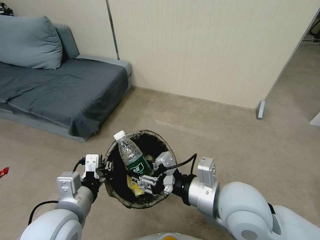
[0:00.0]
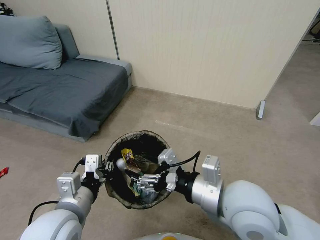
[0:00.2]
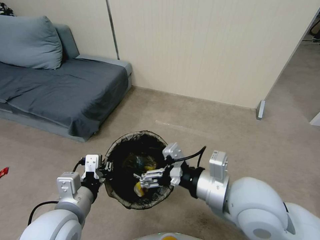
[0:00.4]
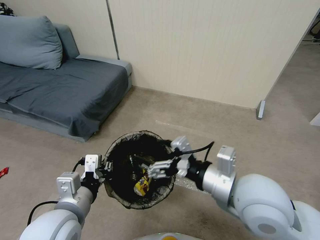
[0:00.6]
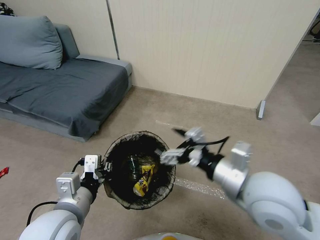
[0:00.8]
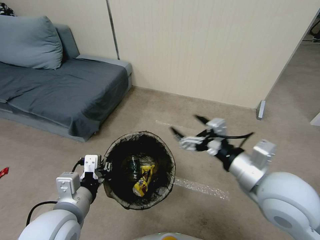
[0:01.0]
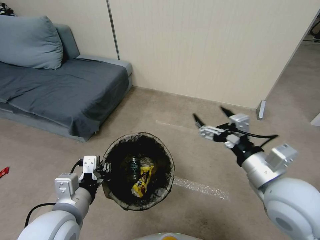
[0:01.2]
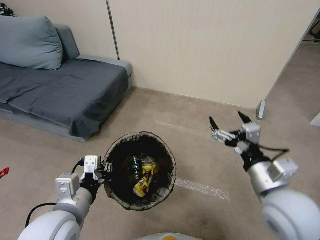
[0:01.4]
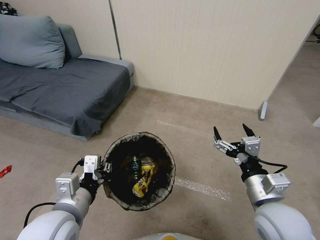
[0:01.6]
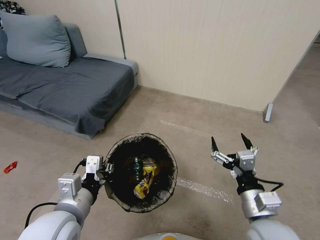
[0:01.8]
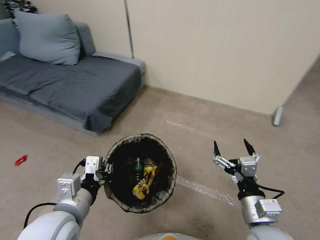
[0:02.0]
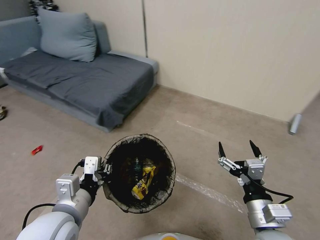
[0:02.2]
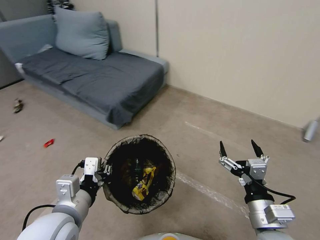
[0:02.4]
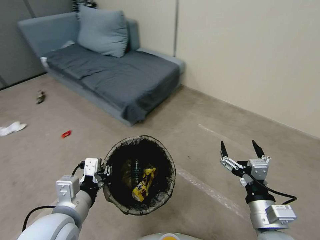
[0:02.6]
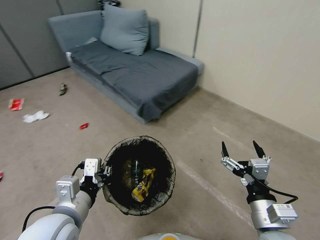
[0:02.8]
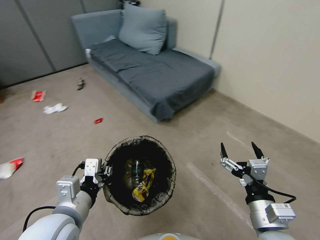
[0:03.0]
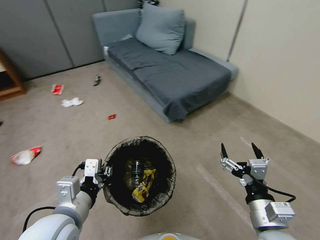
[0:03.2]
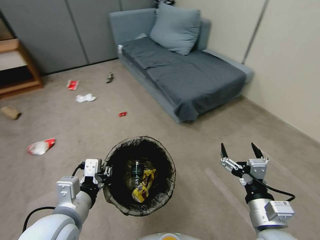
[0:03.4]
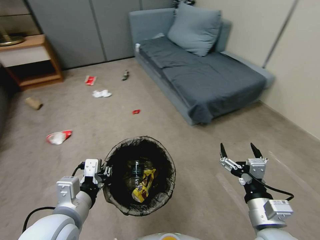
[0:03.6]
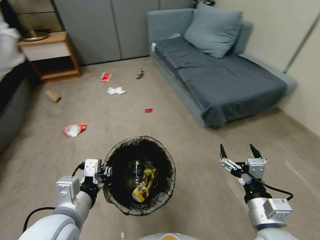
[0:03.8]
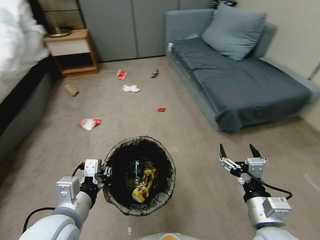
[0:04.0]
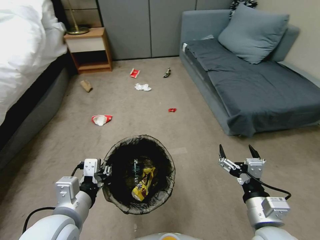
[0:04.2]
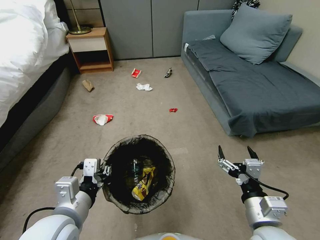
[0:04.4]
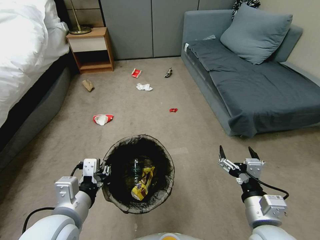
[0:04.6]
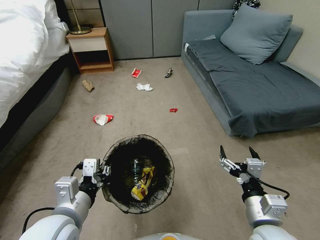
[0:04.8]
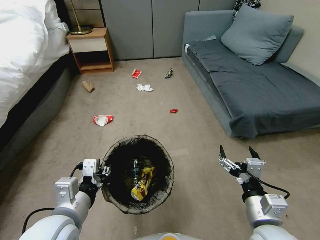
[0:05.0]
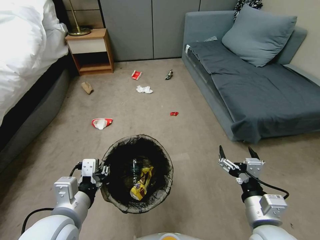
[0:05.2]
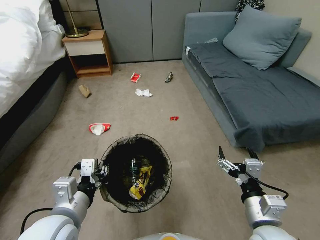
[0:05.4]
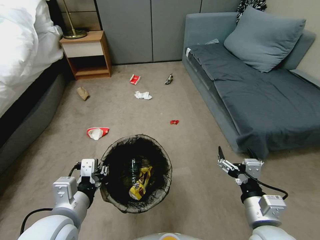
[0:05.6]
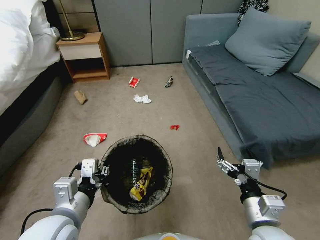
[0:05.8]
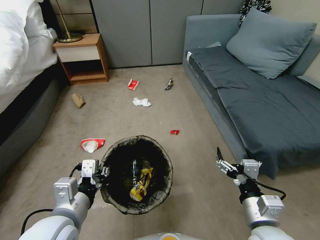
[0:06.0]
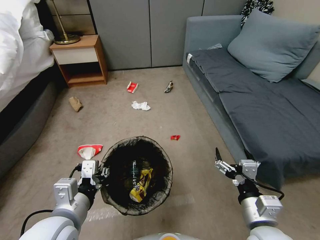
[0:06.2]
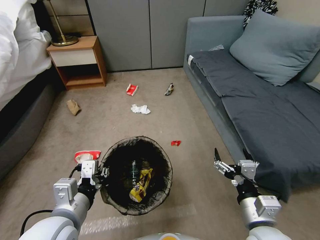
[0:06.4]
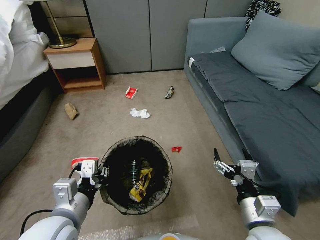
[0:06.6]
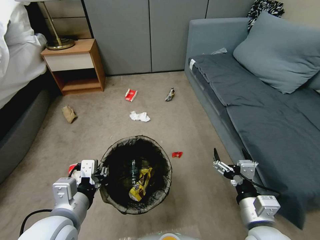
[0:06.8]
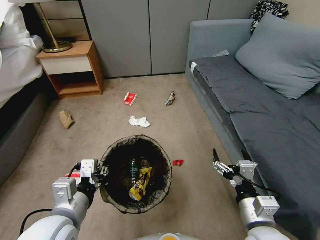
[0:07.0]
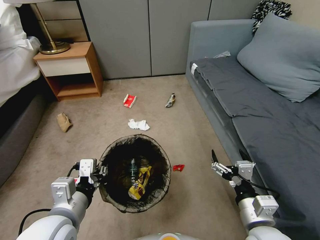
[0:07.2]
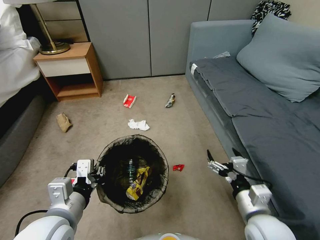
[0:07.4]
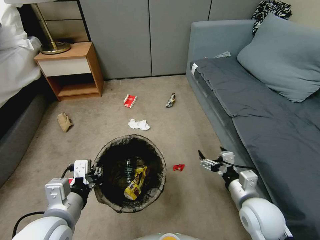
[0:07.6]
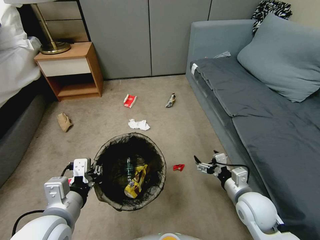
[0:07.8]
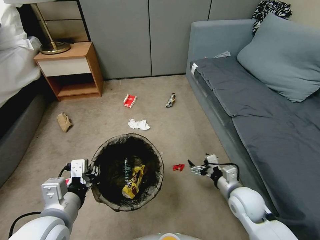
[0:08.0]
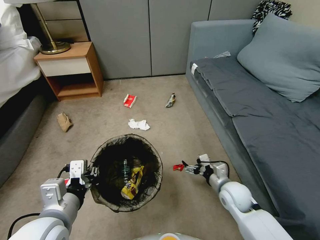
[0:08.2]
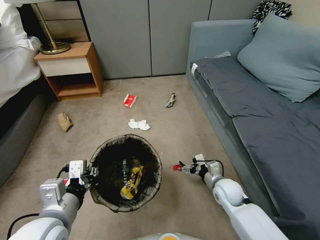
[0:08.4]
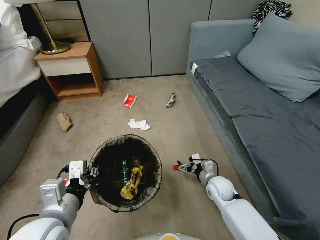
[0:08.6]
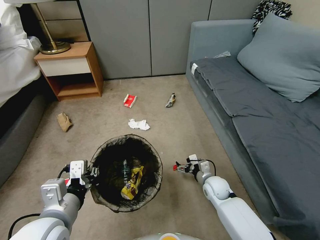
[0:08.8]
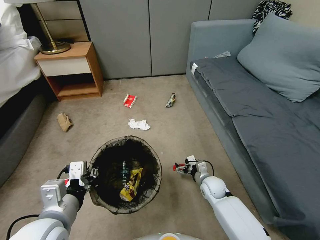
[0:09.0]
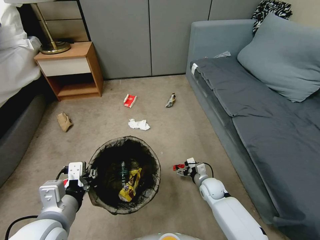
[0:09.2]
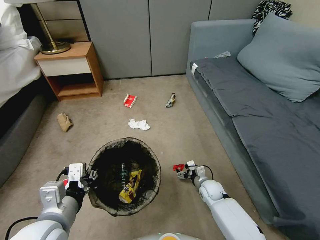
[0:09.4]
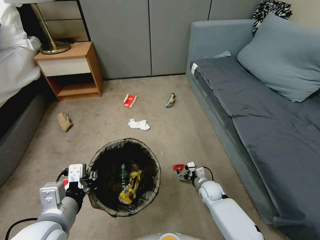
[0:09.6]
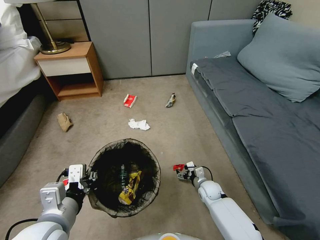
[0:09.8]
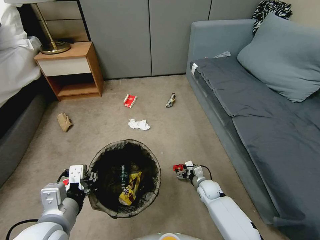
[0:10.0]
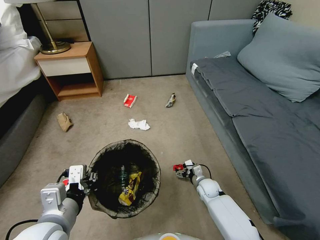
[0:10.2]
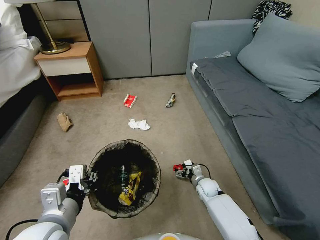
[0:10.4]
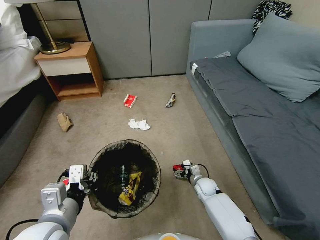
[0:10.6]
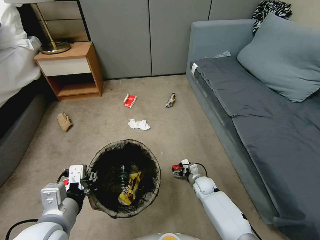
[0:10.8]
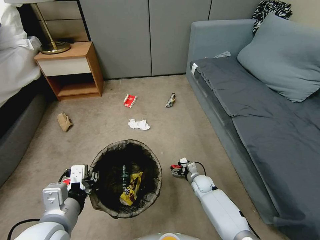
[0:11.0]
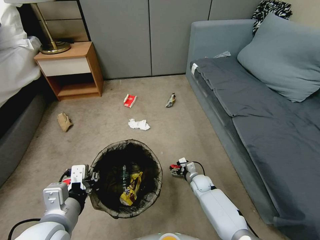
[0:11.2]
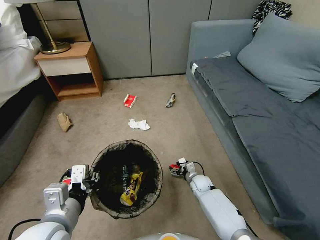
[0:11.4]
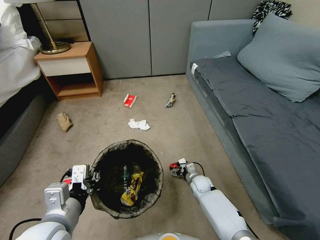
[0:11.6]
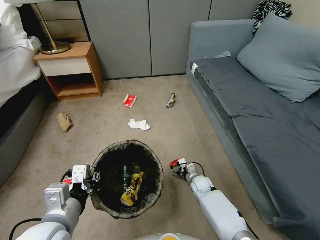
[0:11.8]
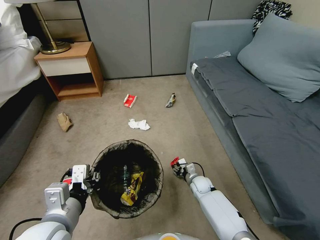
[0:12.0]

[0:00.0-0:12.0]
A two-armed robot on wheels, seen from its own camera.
Task of the whole recording: Pick up the trash bin, then pick up the garbage from the floor and place it into the trash bin.
0:00.0 to 0:01.6: The right gripper moves to the right, about 10 cm, and opens.
0:01.6 to 0:03.0: The right gripper heads downward and backward, covering approximately 10 cm.
0:06.0 to 0:07.6: The right gripper travels forward by roughly 5 cm.
0:07.6 to 0:09.0: The right gripper moves downward and forward, roughly 25 cm.
0:09.0 to 0:10.4: The right gripper shifts roughly 5 cm downward.
0:10.4 to 0:12.0: The right gripper closes its fingers.

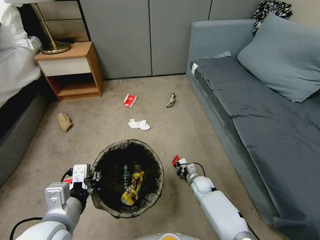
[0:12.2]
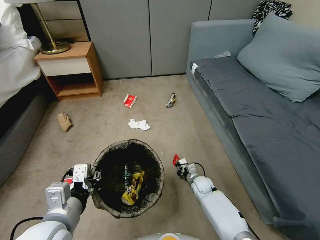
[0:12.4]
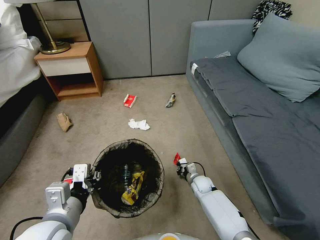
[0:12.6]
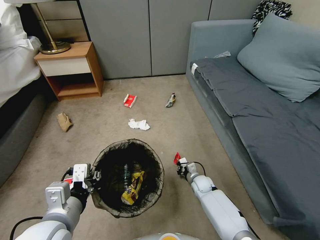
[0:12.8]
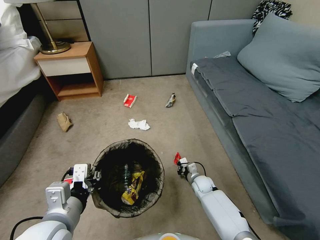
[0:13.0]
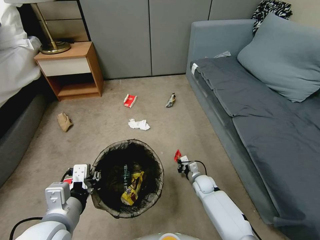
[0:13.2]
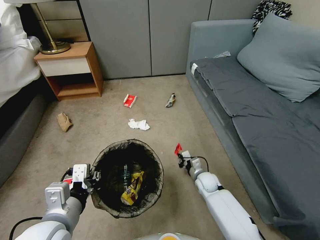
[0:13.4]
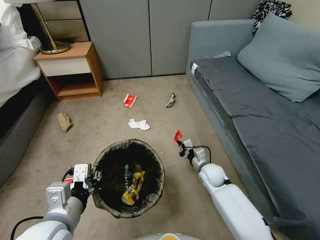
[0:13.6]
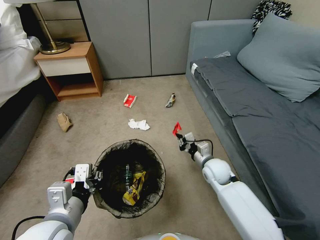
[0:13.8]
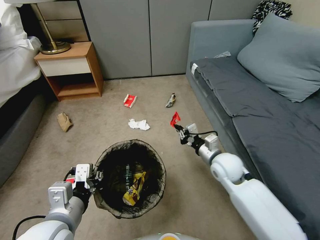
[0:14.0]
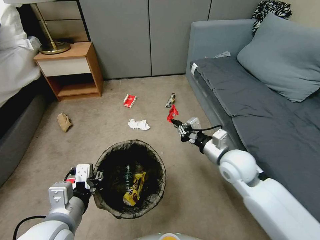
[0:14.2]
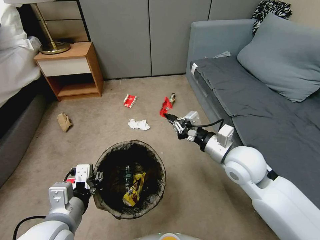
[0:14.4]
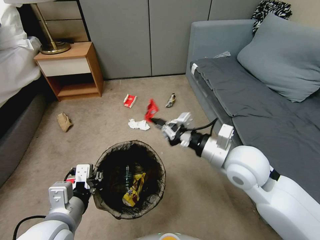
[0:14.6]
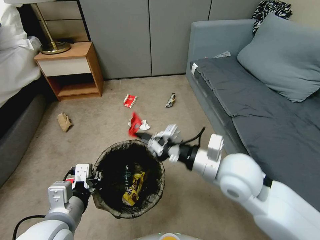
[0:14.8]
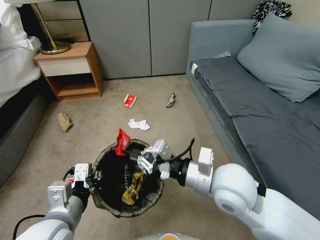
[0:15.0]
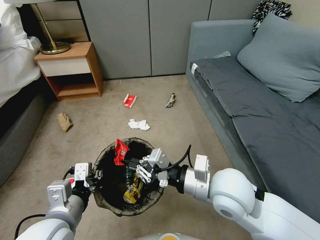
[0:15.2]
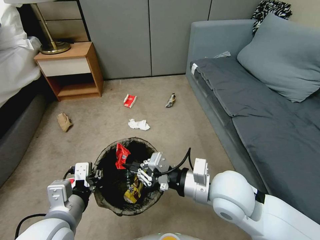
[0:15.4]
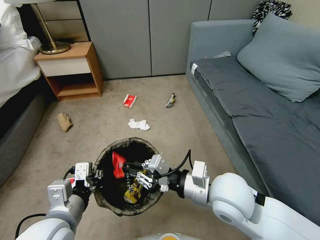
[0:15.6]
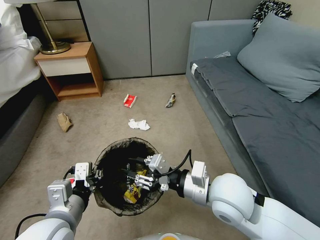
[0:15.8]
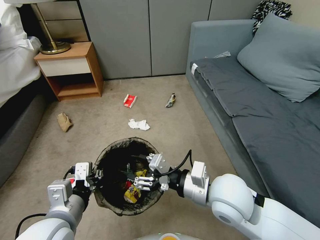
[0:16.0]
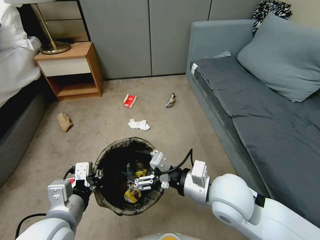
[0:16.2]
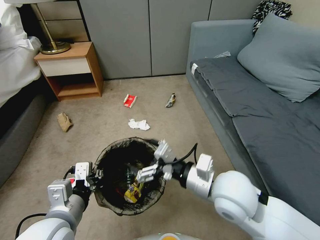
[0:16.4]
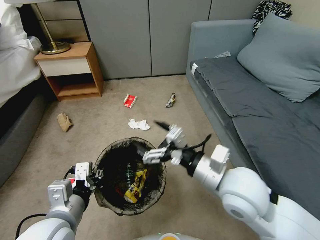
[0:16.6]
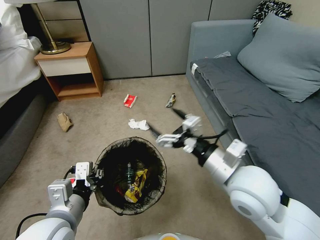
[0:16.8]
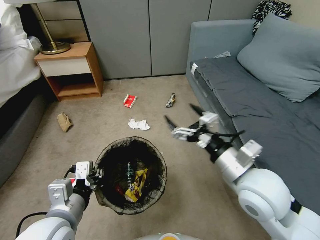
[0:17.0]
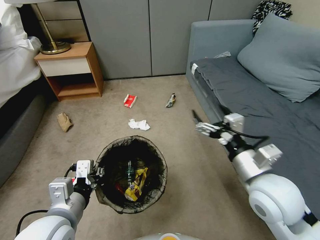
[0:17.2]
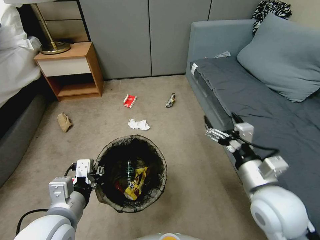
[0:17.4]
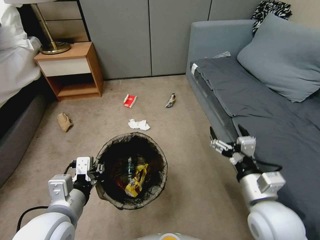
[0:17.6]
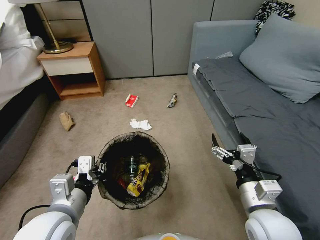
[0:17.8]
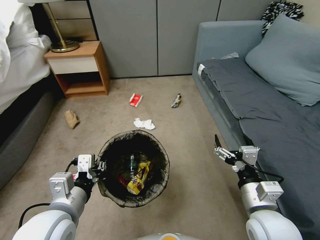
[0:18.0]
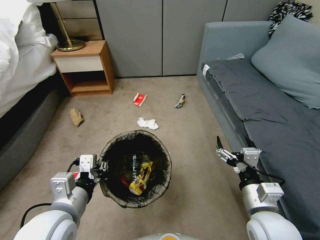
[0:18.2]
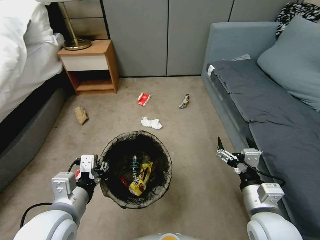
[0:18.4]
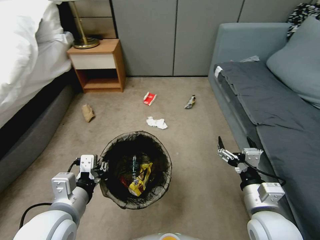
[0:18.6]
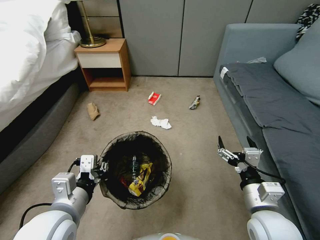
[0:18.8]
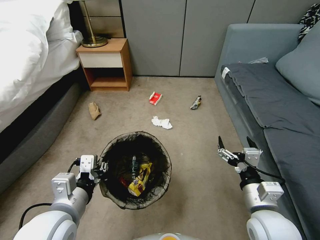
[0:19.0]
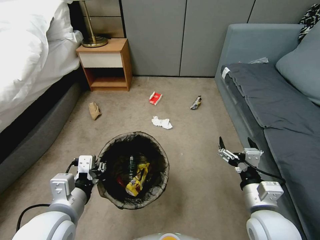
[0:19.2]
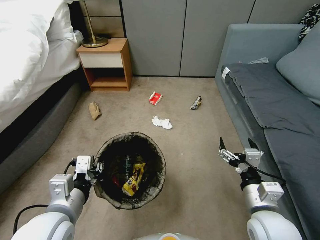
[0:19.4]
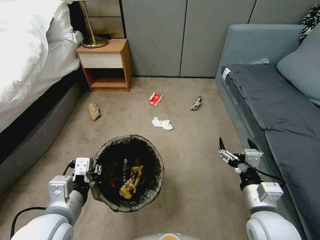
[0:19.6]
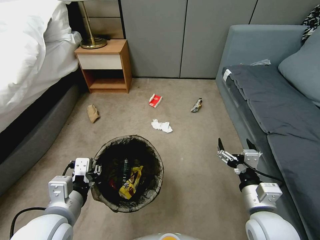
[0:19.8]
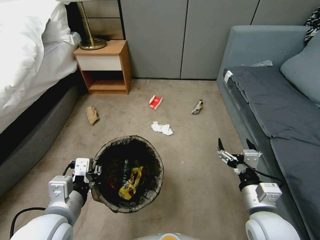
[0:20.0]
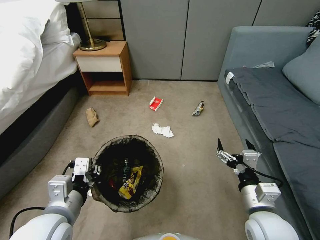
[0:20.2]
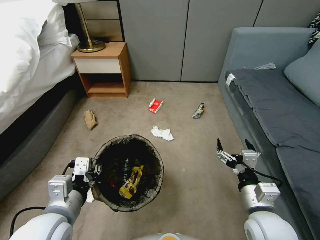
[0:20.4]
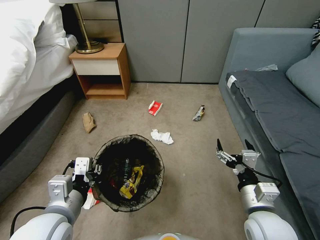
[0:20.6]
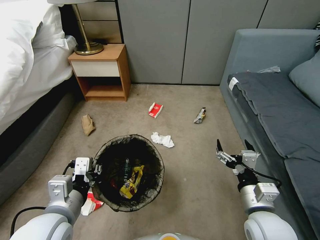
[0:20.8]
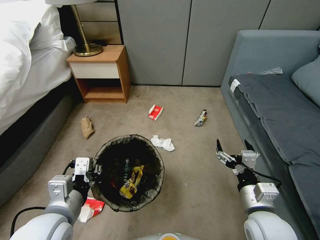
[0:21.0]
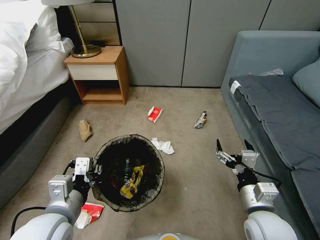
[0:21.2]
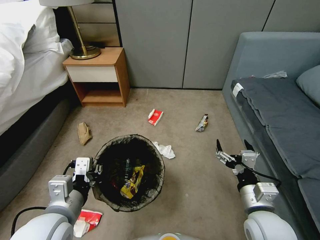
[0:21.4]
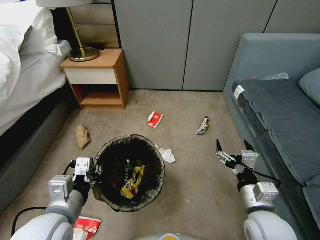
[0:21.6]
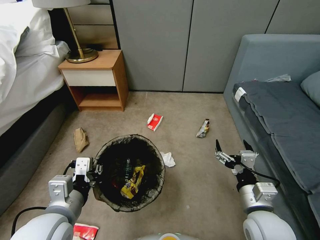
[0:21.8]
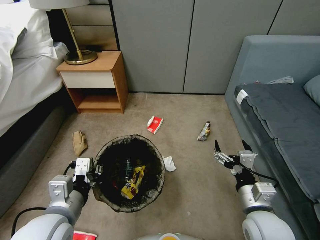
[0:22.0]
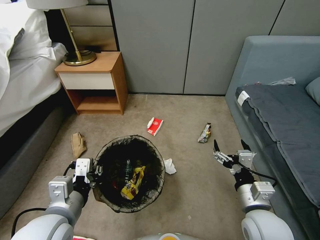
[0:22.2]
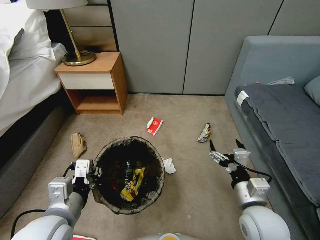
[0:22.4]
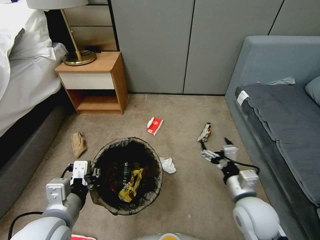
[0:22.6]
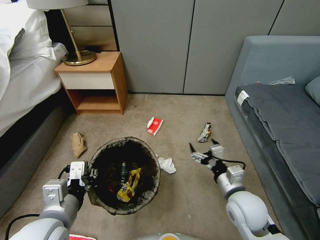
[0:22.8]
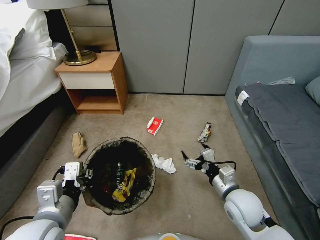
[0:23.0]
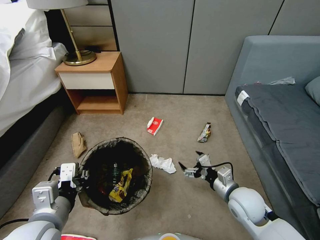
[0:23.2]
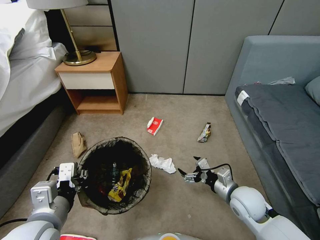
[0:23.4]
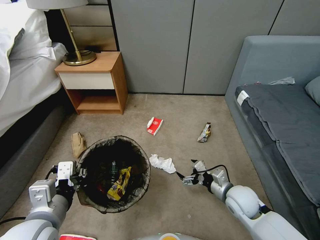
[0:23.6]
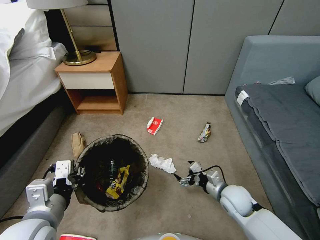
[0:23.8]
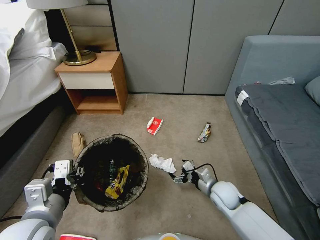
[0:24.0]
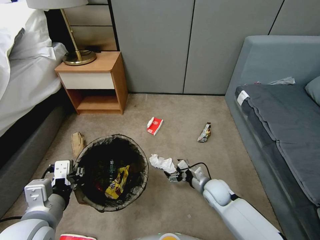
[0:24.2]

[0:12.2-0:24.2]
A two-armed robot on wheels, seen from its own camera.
Task of the whole recording: Pick up the trash bin, then pick up the garbage from the floor and place it into the trash bin.
0:12.2 to 0:13.8: The right gripper moves upward, roughly 20 cm, and closes.
0:13.8 to 0:15.2: The right gripper shifts roughly 25 cm upward and backward.
0:15.2 to 0:16.6: The right gripper opens its fingers.
0:16.6 to 0:18.2: The right gripper moves downward, to the right and backward, approximately 15 cm.
0:22.6 to 0:24.2: The right gripper heads downward and forward, covering approximately 20 cm.
